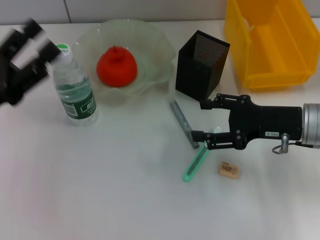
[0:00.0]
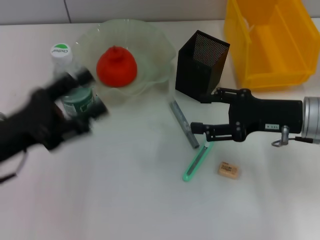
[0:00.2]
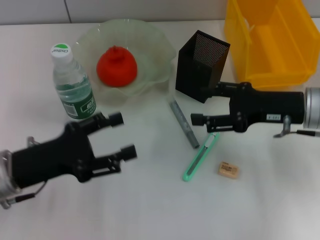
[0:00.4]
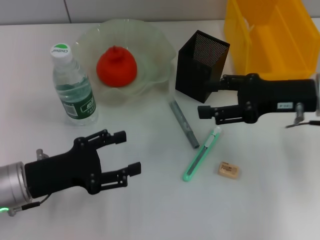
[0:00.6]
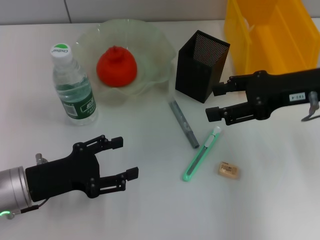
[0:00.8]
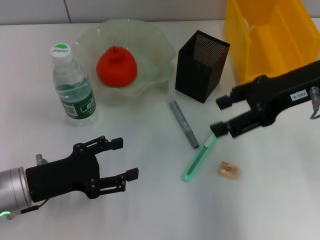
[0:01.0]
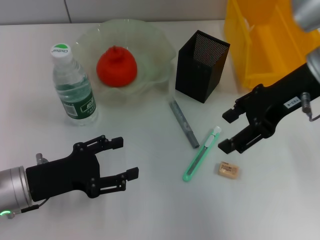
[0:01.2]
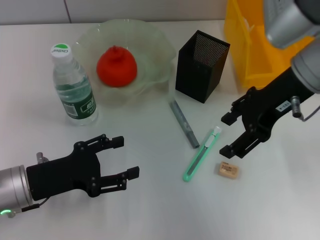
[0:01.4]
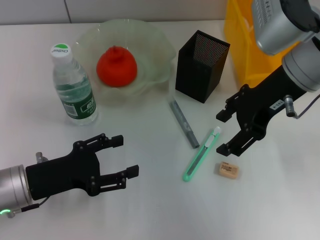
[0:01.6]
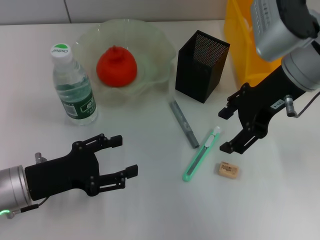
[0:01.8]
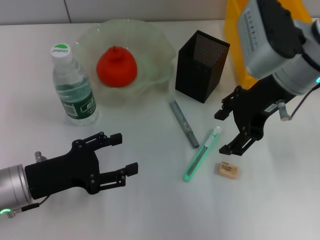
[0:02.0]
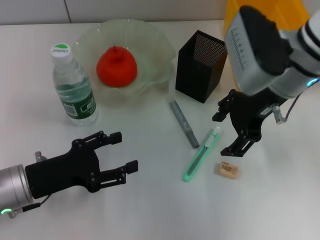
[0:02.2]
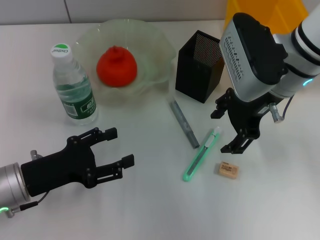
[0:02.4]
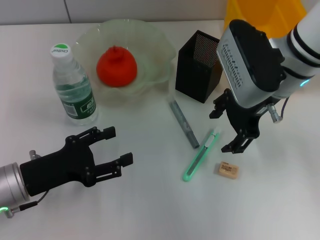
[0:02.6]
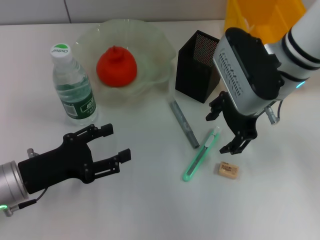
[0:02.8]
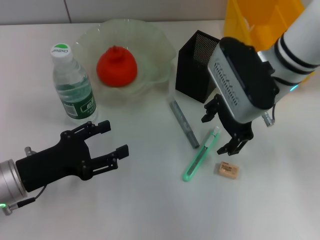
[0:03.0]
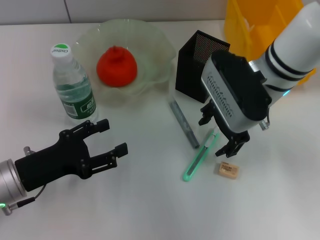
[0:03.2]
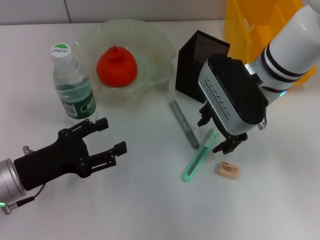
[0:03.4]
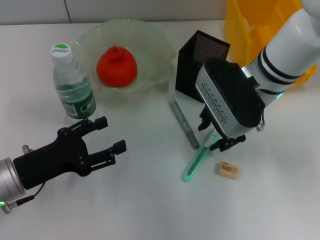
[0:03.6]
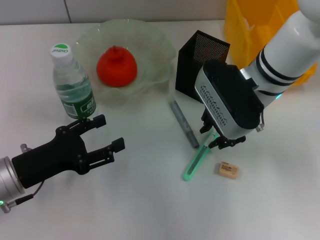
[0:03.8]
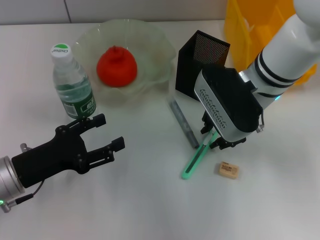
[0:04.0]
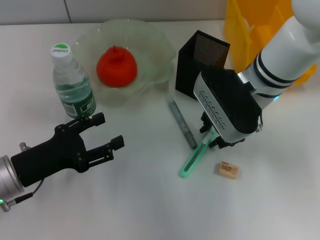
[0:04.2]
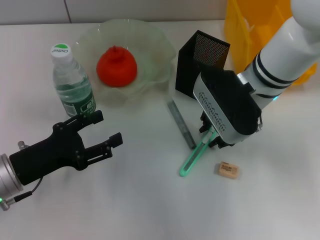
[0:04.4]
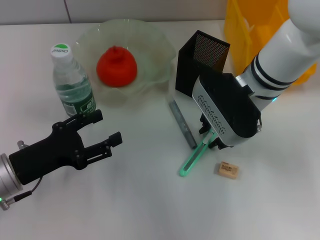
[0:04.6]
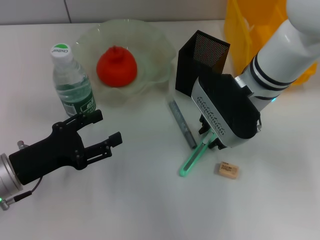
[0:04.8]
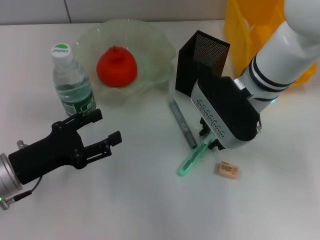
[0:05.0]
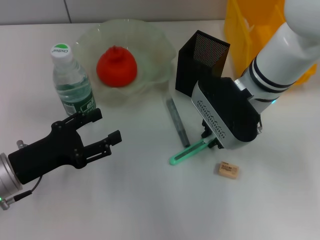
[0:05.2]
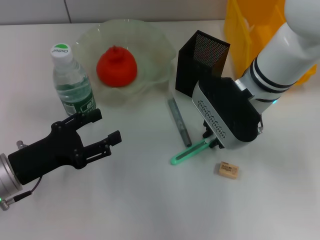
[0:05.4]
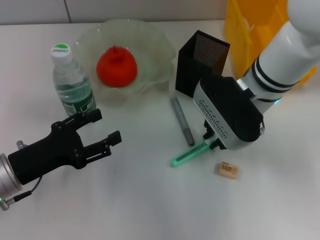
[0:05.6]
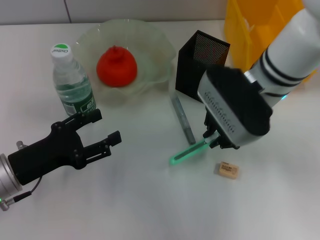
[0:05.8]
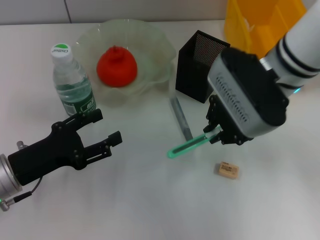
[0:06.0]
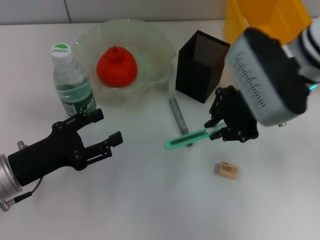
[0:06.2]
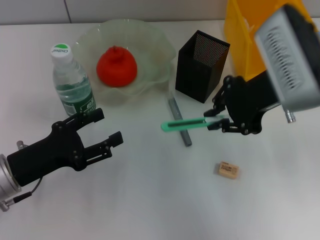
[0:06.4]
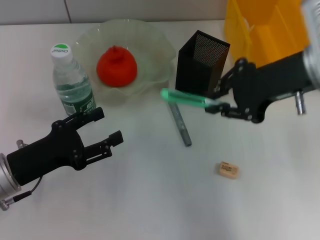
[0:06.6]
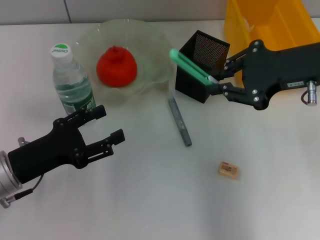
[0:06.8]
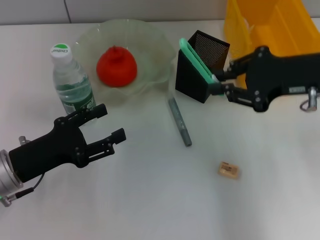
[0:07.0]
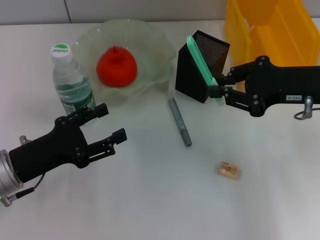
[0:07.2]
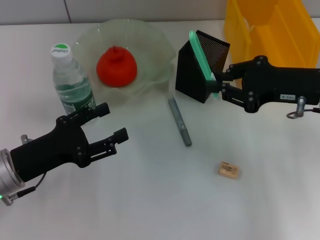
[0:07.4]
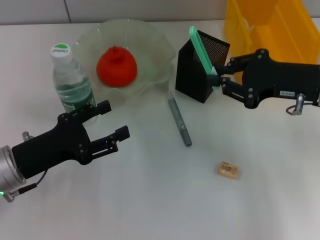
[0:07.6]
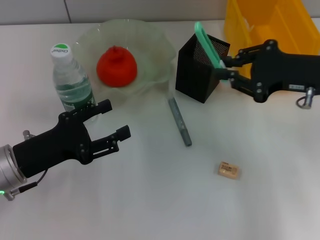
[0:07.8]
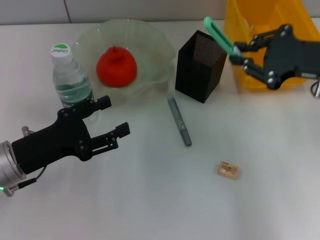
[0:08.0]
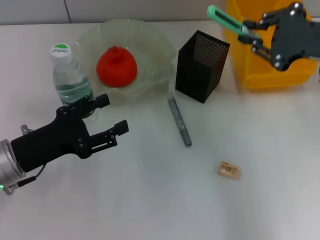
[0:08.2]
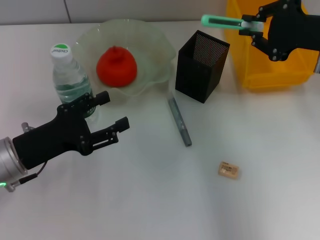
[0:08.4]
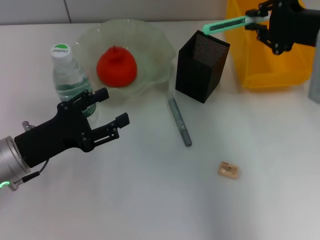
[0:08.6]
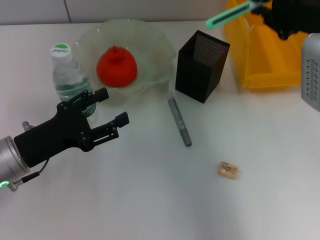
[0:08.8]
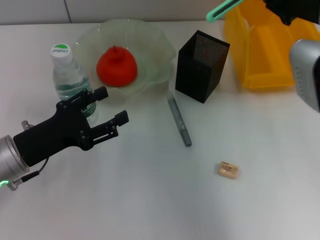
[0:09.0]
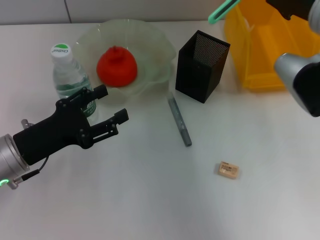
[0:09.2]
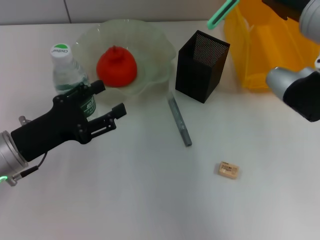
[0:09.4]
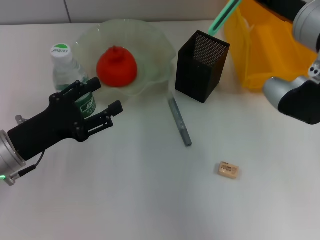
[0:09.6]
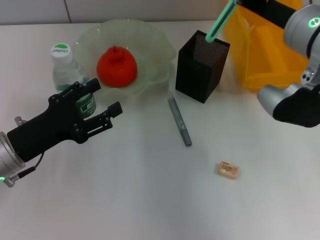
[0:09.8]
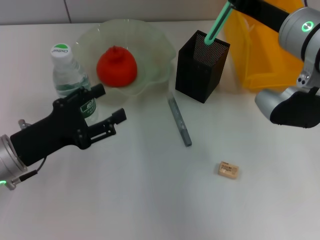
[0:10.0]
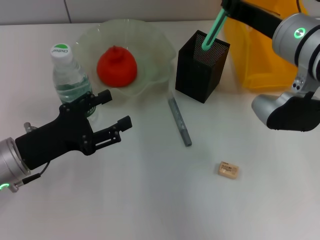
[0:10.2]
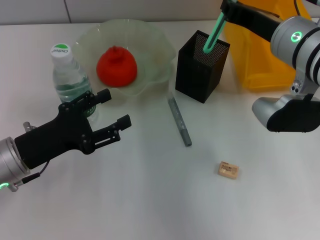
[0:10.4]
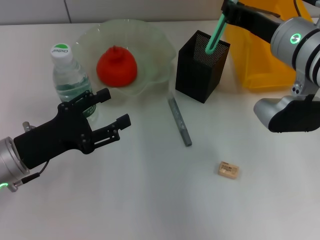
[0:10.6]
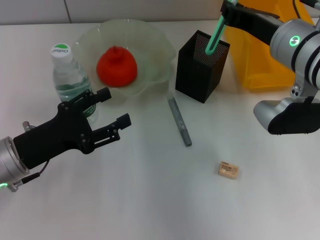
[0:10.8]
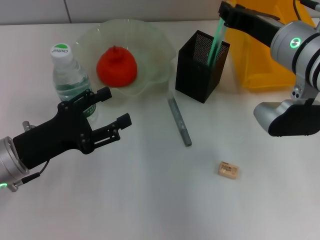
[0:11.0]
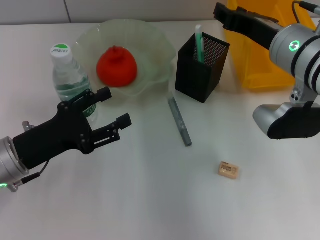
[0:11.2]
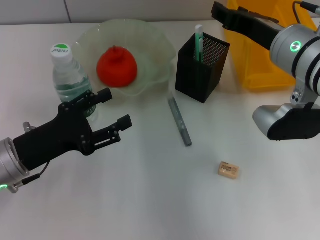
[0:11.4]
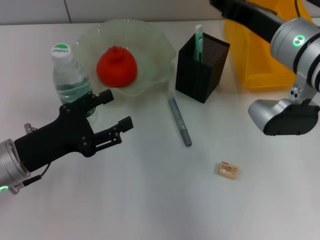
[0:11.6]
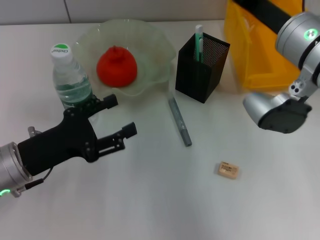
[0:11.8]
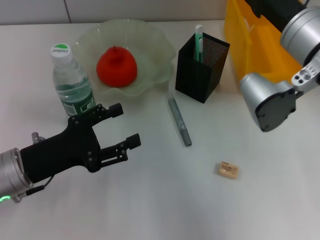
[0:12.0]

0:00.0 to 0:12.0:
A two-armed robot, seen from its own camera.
Step, 0:00.0 to 0:05.4: Grab the blue utility knife with the right hand.
Step, 0:05.6 to 0:11.2: Place the blue utility knife into the pen holder with the right hand.
0:00.0 to 0:01.6: The left gripper moves downward, about 5 cm. Meanwhile the right gripper travels upward and to the left by approximately 15 cm.
0:01.6 to 0:03.0: The right gripper ends up about 5 cm from where it was.
0:03.0 to 0:04.4: The right gripper closes.
0:04.4 to 0:06.0: The right gripper ends up about 5 cm from where it was.
0:06.0 to 0:07.6: The right gripper moves to the right, roughly 10 cm.
0:07.6 to 0:09.0: The right gripper shifts some 10 cm upward.
0:09.0 to 0:10.4: The right gripper heads to the left, covering approximately 5 cm.
0:10.4 to 0:12.0: The right gripper opens up.

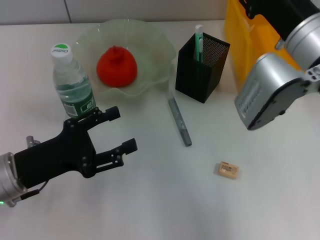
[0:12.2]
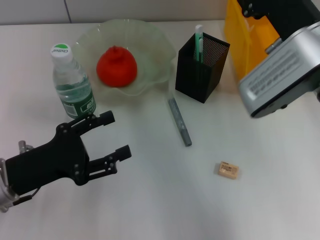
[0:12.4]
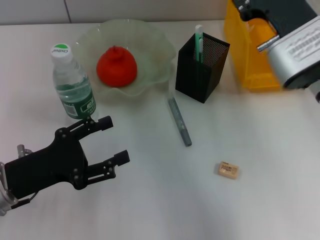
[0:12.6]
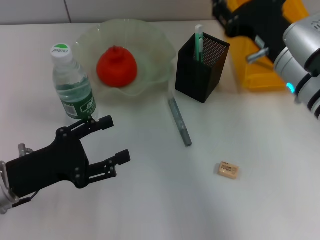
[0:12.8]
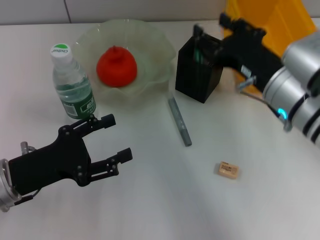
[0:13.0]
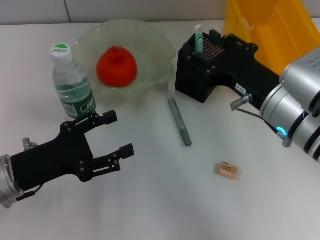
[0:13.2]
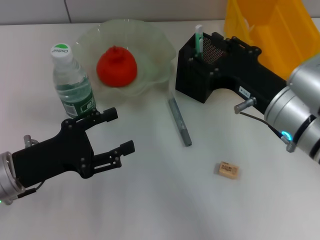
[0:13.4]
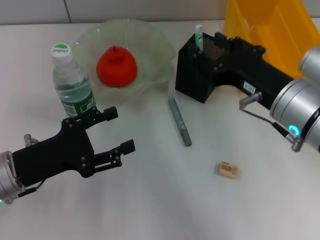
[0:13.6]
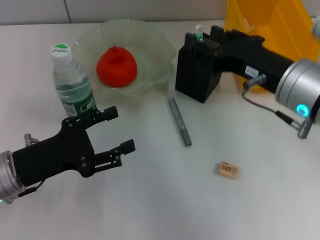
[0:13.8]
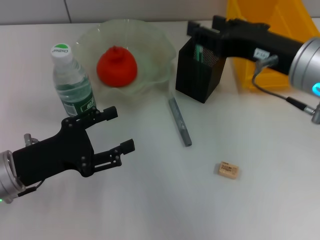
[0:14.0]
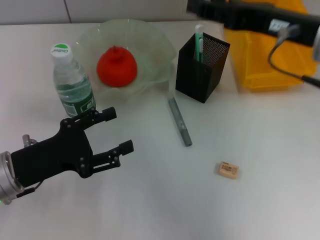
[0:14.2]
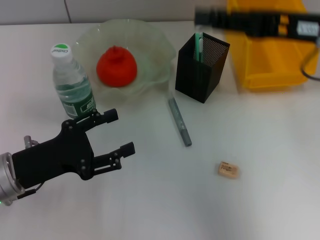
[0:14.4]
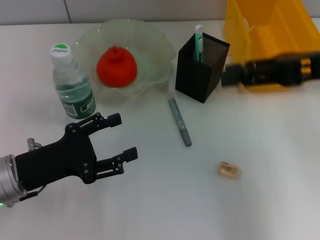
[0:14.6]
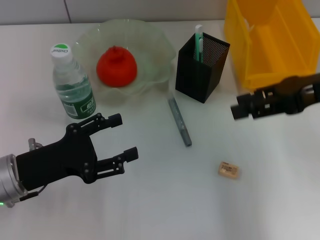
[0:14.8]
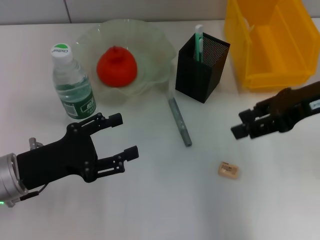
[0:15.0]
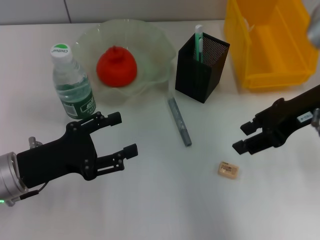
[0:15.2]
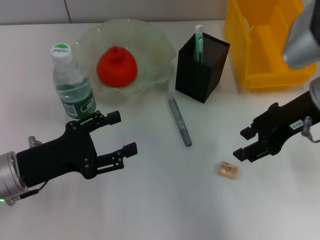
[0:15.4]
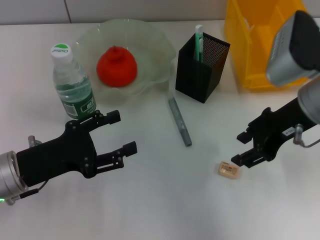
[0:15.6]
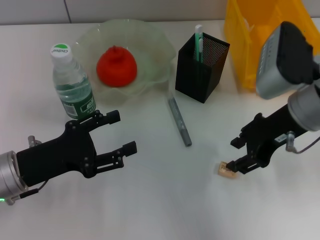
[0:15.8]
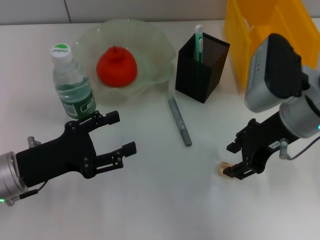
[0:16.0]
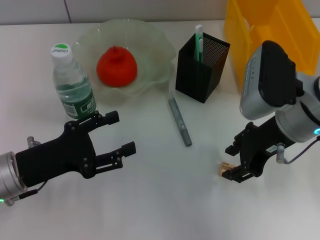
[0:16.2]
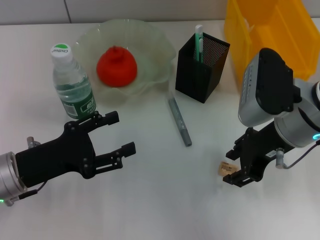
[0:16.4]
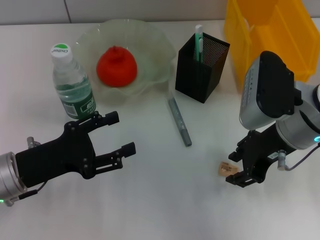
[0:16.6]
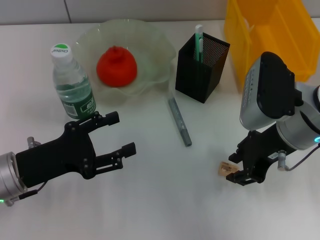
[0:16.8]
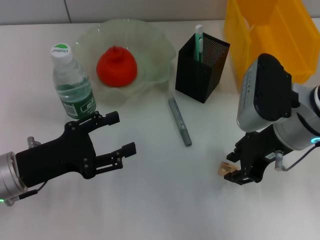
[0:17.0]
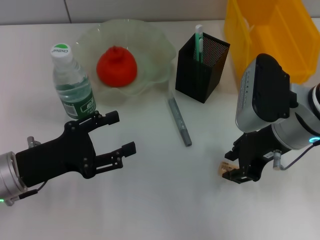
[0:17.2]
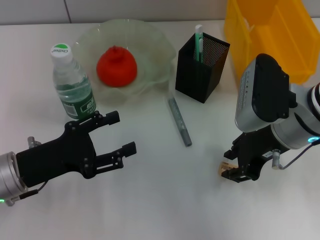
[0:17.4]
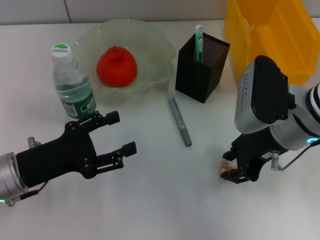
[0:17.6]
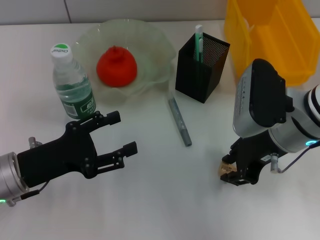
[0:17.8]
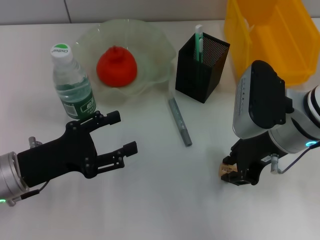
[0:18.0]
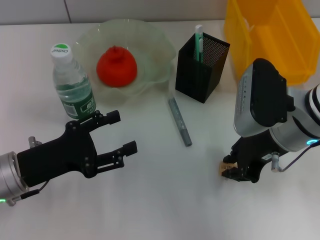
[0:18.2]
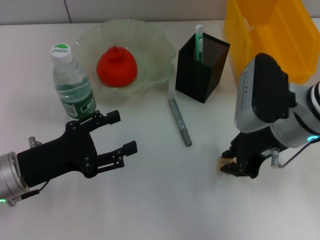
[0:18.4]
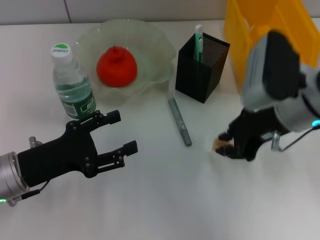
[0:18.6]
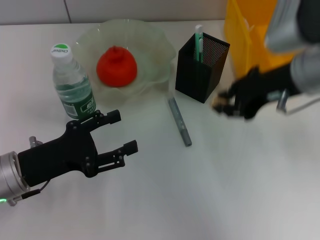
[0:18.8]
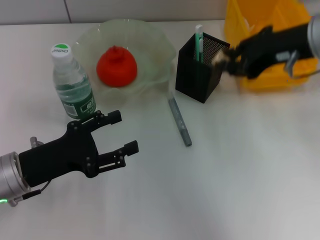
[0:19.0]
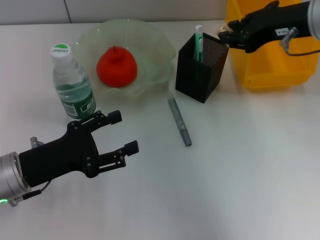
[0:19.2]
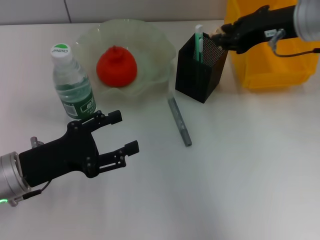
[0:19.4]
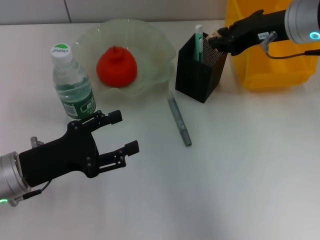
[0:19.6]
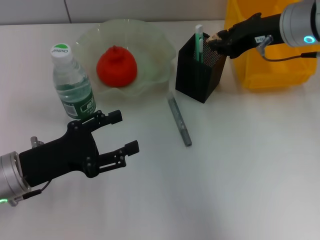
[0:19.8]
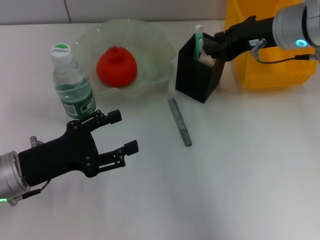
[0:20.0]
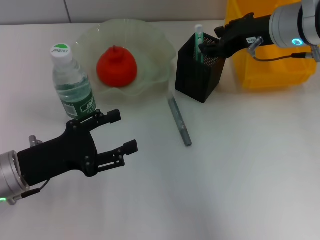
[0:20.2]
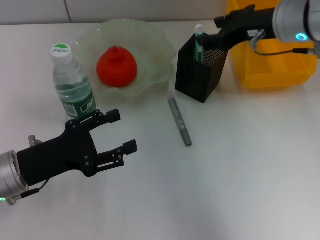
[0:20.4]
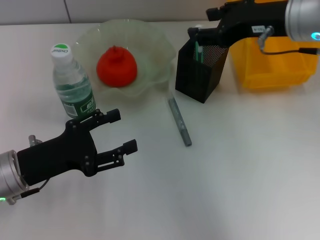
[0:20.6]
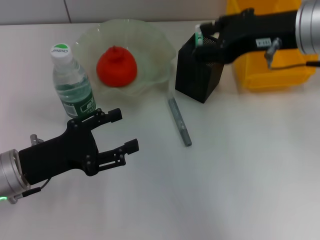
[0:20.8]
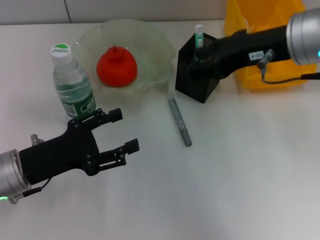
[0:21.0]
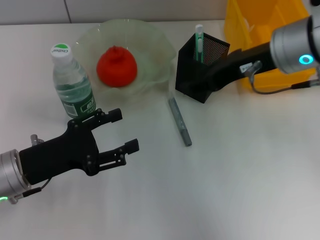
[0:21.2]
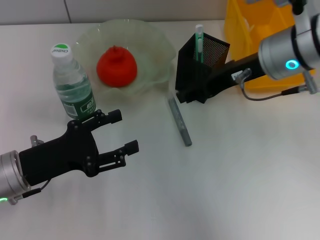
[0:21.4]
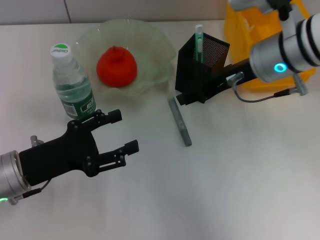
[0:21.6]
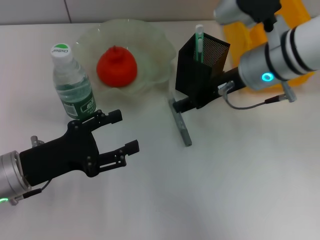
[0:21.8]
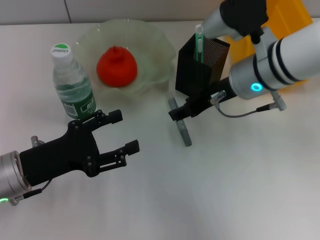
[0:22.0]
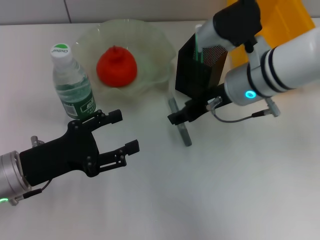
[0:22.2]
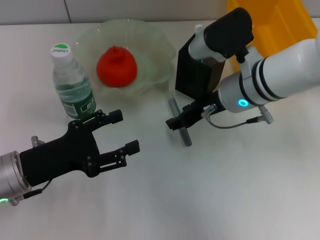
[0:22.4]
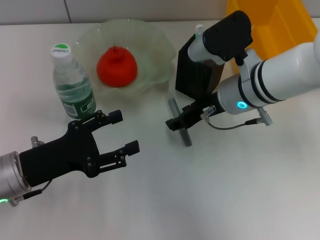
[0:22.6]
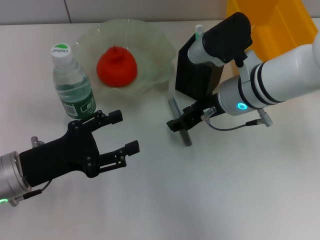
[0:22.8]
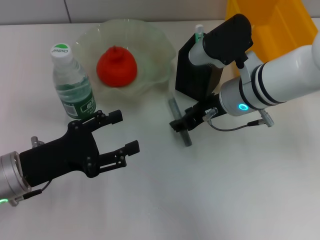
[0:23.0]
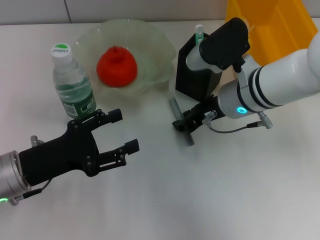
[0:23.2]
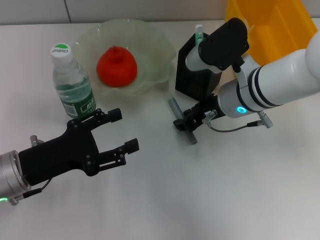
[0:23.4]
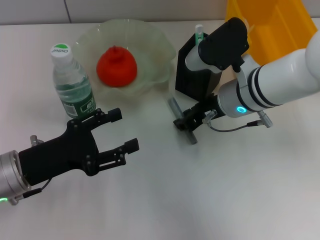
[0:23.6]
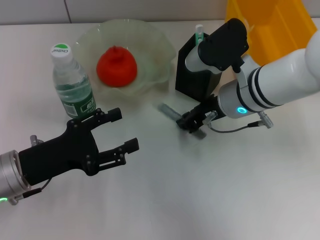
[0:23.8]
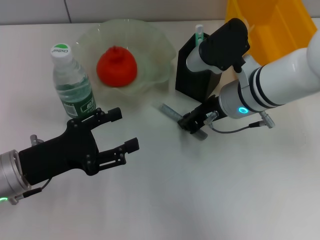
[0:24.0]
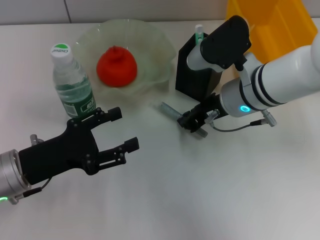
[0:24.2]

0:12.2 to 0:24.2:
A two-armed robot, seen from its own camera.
Step, 0:12.2 to 0:18.0: Grab the eraser with the right hand.
Step, 0:18.2 to 0:20.0: Put the eraser into the pen holder with the right hand.
Step, 0:20.2 to 0:24.0: Grab the gray glue with the right hand.
0:13.8 to 0:15.2: The right gripper moves to the right and forward, some 10 cm.
0:15.2 to 0:16.6: The right gripper shifts some 5 cm to the left.
0:16.6 to 0:18.2: Neither gripper changes place.
0:18.2 to 0:19.8: The right gripper goes roughly 10 cm forward and upward.
0:19.8 to 0:21.2: The right gripper opens up.
0:21.2 to 0:22.6: The right gripper shifts approximately 10 cm downward.
0:22.6 to 0:24.2: The right gripper closes up.
